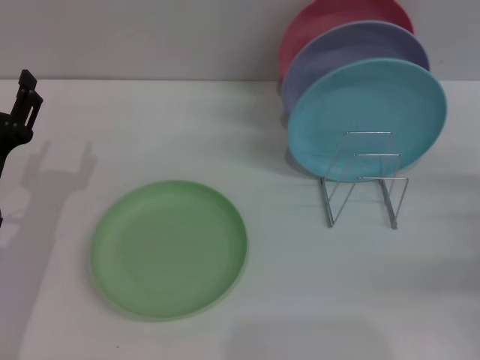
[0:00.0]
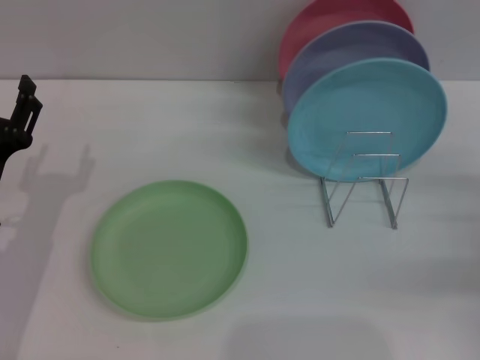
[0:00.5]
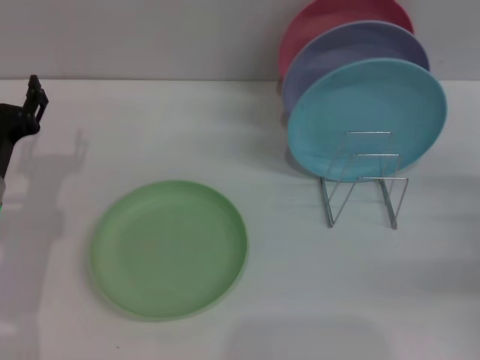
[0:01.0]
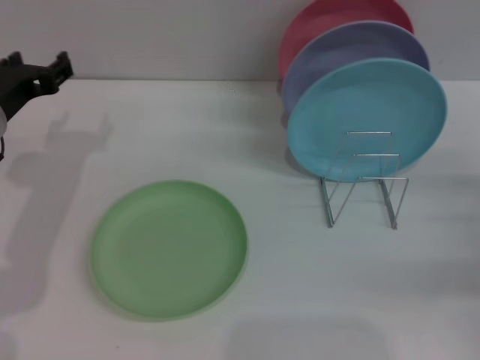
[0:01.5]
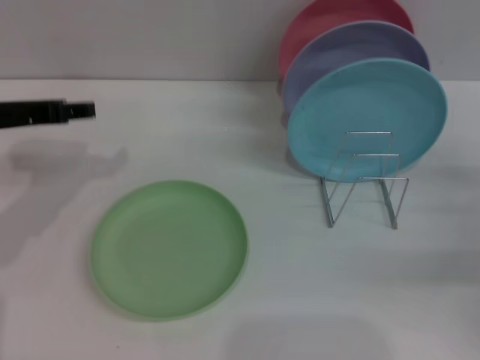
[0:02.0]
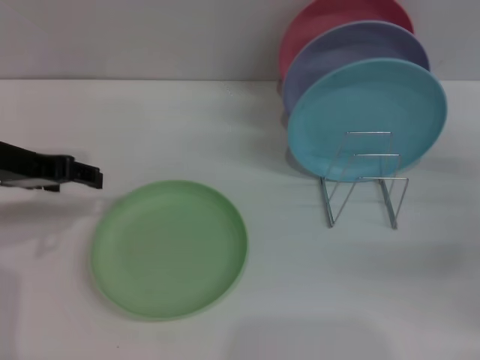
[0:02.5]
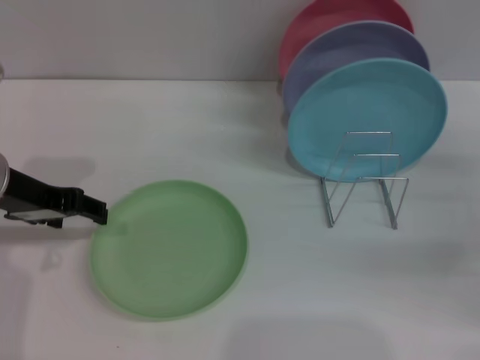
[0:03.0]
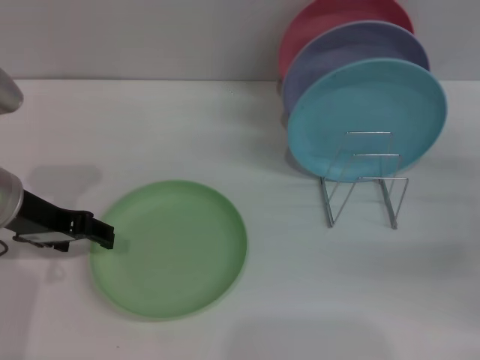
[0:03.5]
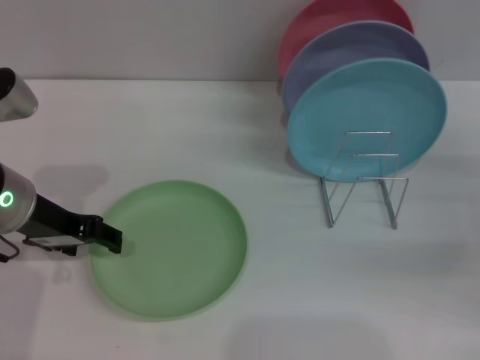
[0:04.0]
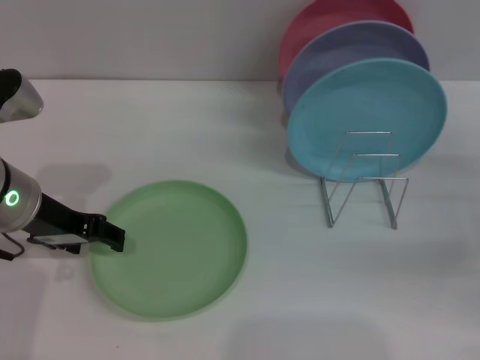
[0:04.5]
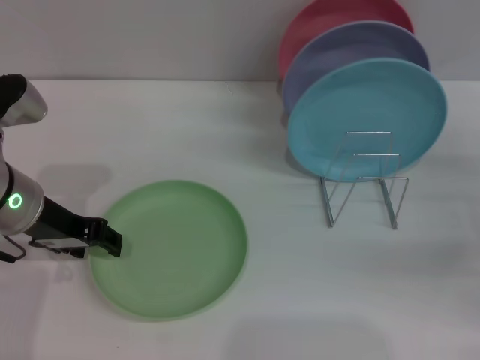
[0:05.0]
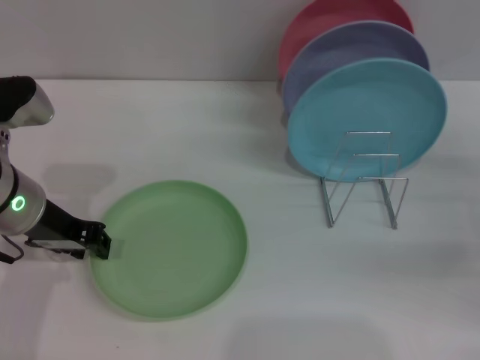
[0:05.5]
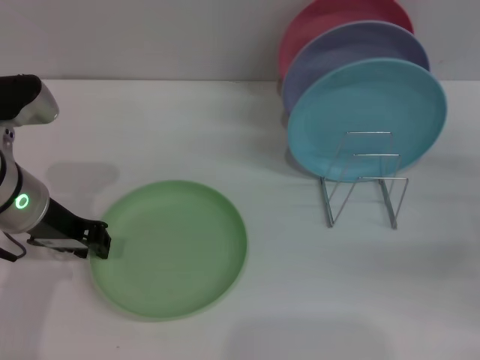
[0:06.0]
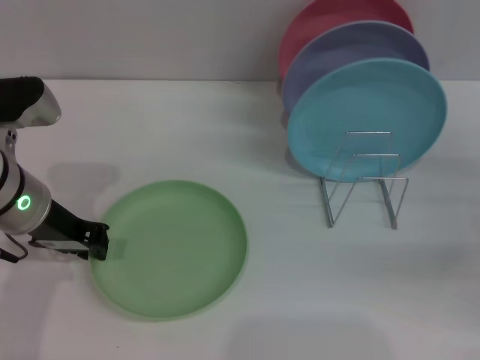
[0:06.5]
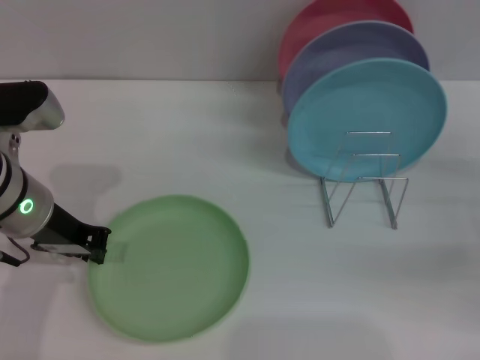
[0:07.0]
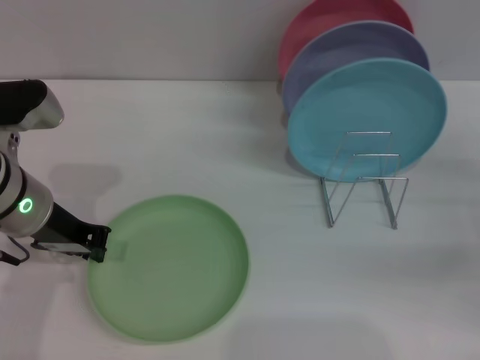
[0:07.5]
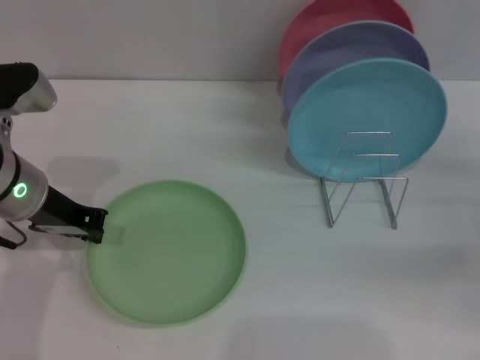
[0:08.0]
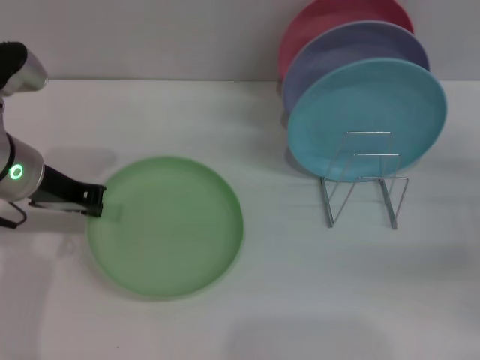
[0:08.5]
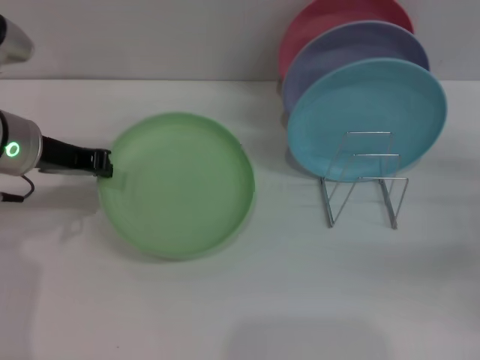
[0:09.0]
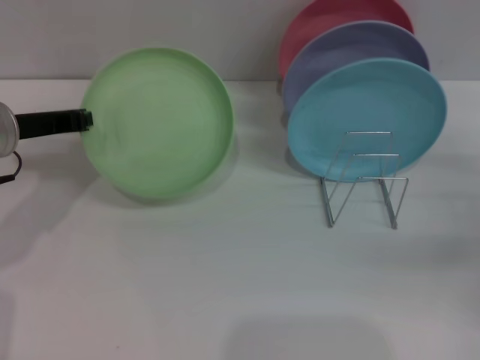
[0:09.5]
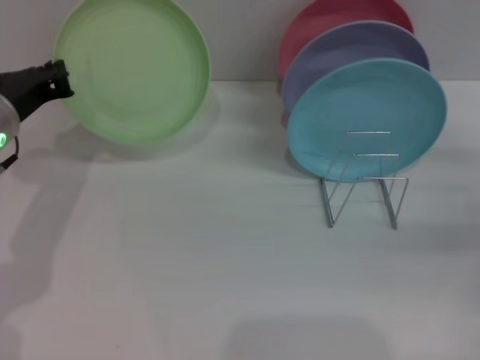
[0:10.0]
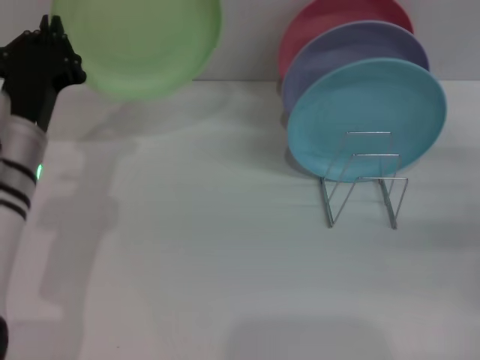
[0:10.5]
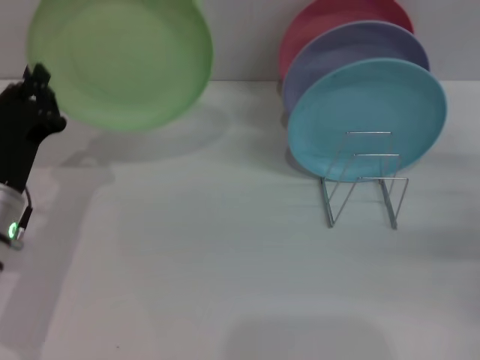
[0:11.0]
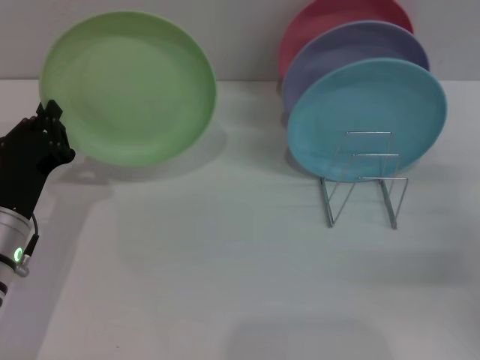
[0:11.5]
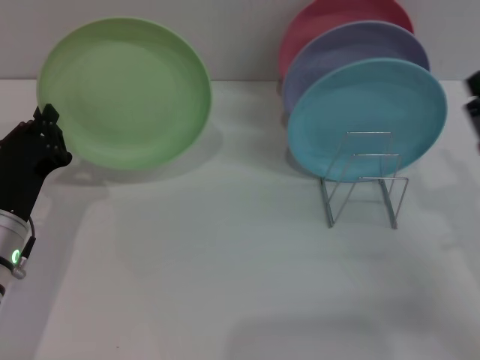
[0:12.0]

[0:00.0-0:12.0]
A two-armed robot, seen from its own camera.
Task of the whole recording: Grip the plate with one hand, pass it to the other, then set it on the shelf.
Step, 0:00.0 to 0:09.0: Pick up the plate with the left gripper.
0:00.0 to 0:02.0: The left gripper moves upward and forward, approximately 15 cm.
0:02.0 to 0:04.0: The left gripper moves approximately 5 cm.
0:04.0 to 0:06.0: The left gripper closes up.
0:06.0 to 0:08.0: Both grippers stay put.
0:10.0 to 0:12.0: The right gripper heads to the left and backward, covering some 10 cm. The left gripper shifts roughly 15 cm downward and backward.

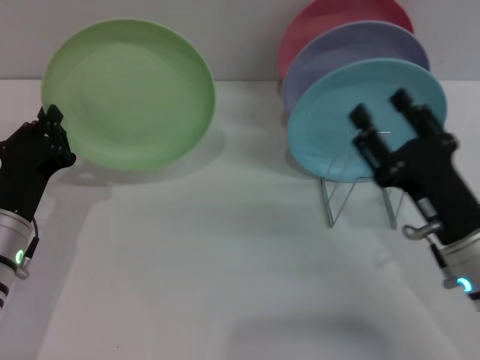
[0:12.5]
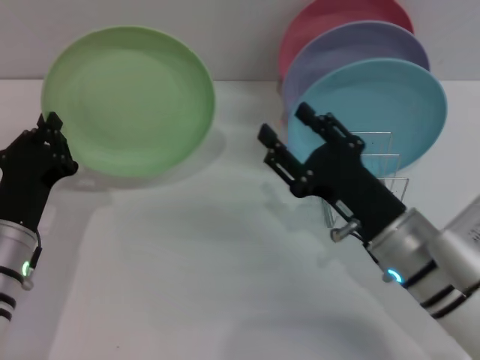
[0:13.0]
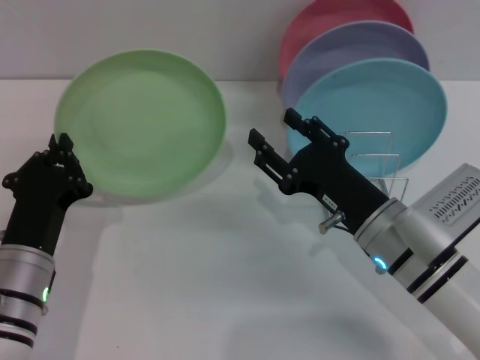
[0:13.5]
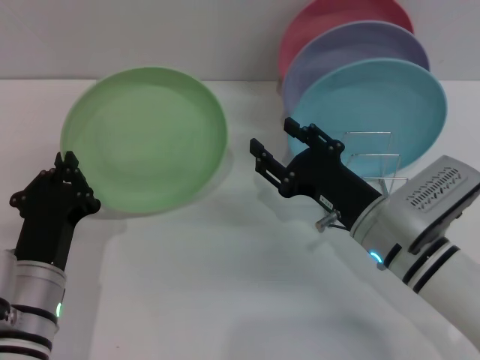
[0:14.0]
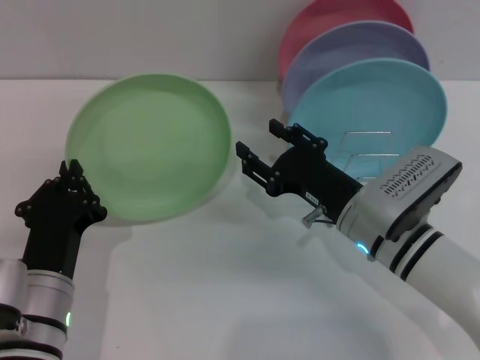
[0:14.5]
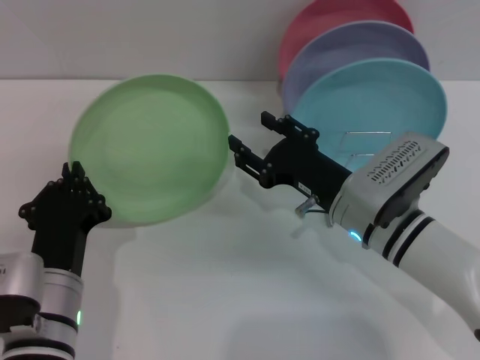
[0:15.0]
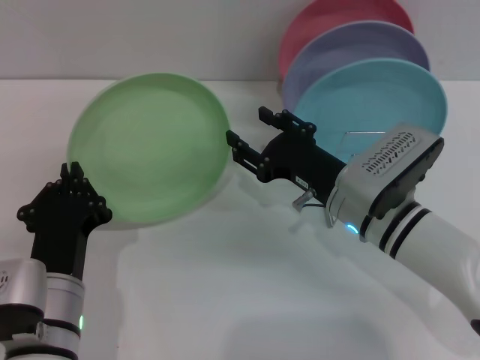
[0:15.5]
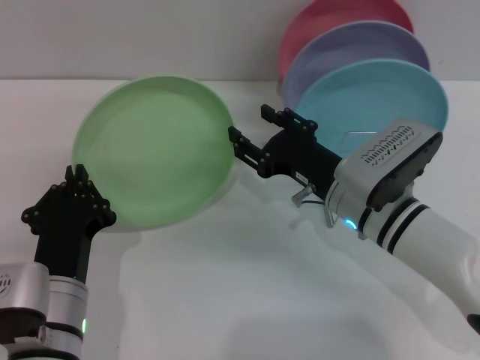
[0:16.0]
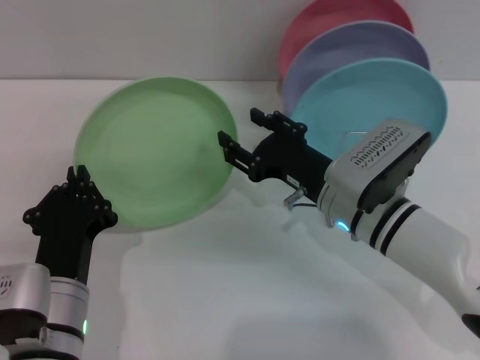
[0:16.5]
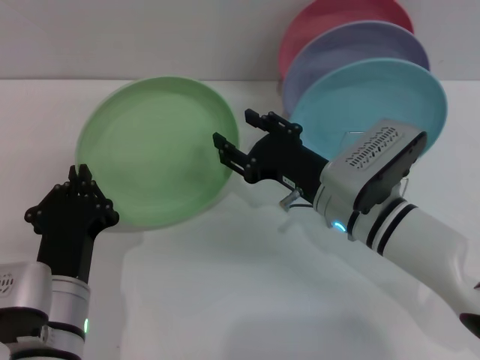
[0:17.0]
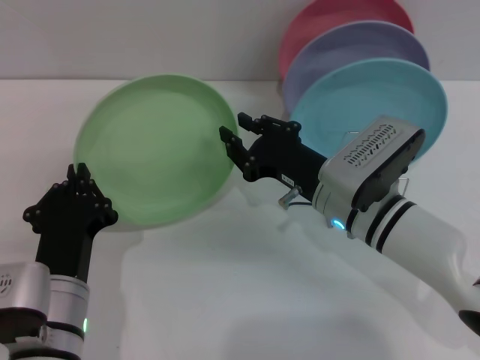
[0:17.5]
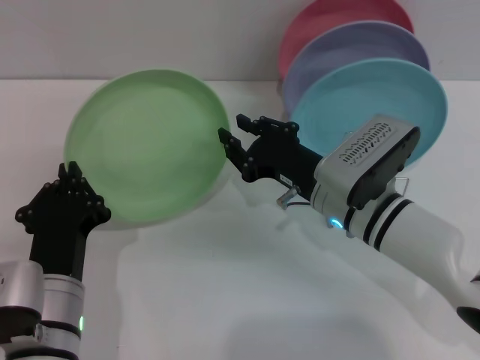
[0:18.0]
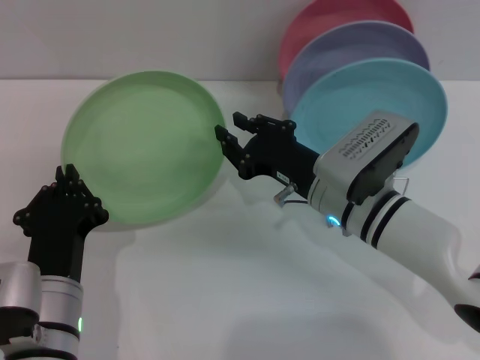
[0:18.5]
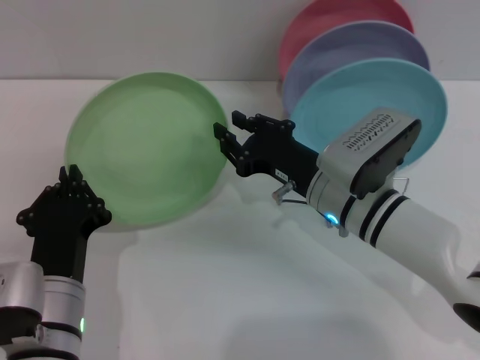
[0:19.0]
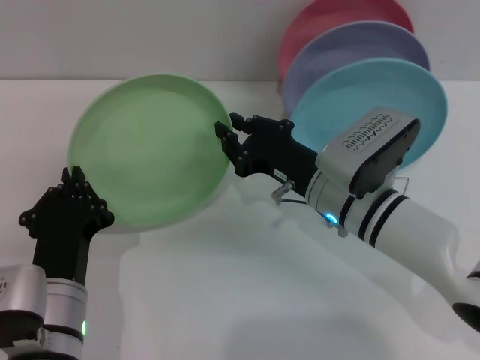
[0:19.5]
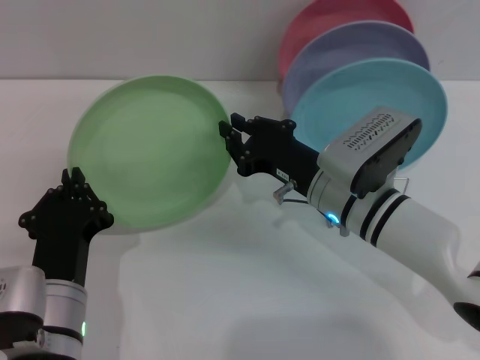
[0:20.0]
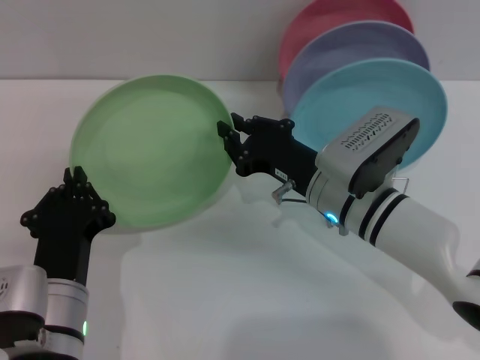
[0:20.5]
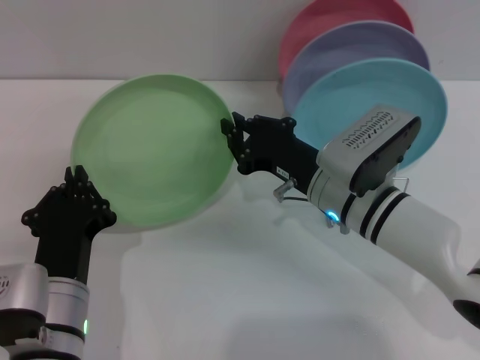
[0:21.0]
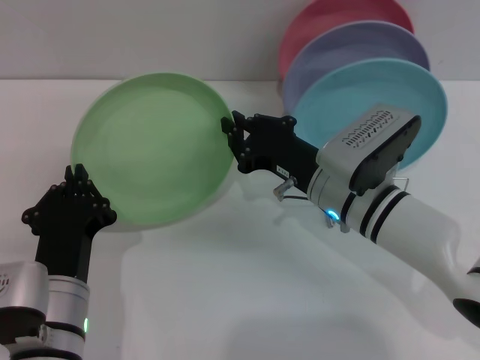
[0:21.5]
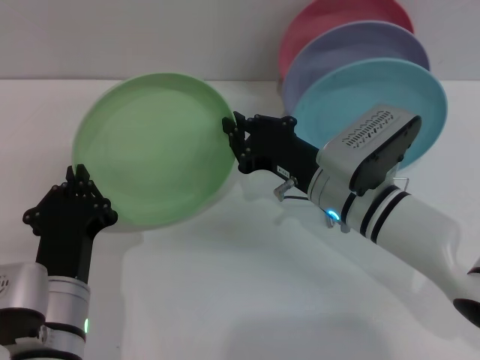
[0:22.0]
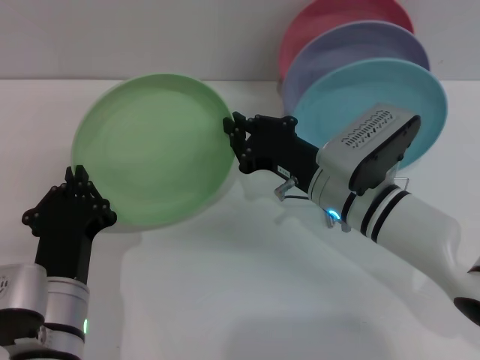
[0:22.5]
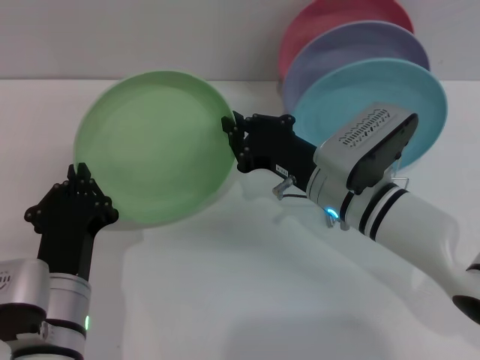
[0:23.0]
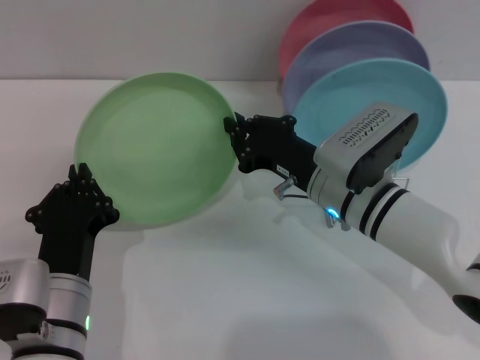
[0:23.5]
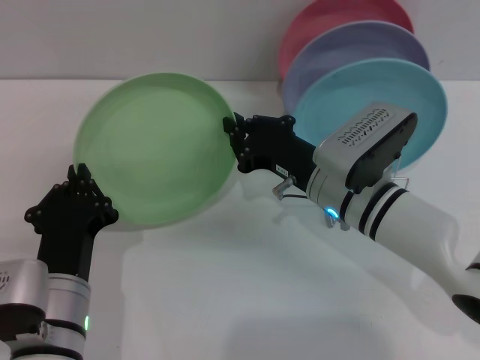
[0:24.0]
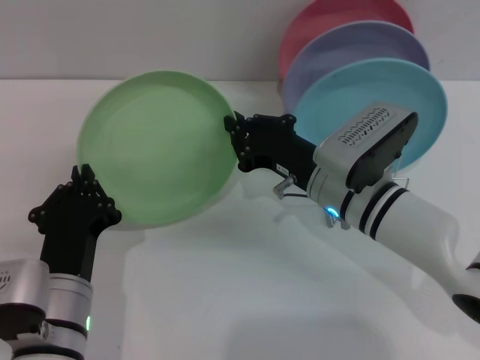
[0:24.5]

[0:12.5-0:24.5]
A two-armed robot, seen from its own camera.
Task of the whole recording: Grip the plate with one hand, pass it to the other, then set it on the shelf.
0:12.5 to 0:14.5: The right gripper travels to the left and forward by roughly 10 cm. The left gripper travels backward and to the right by some 10 cm.
0:14.5 to 0:16.5: The grippers move only a little.
0:16.5 to 0:18.5: The right gripper closes.
0:18.5 to 0:24.5: Both grippers stay put.

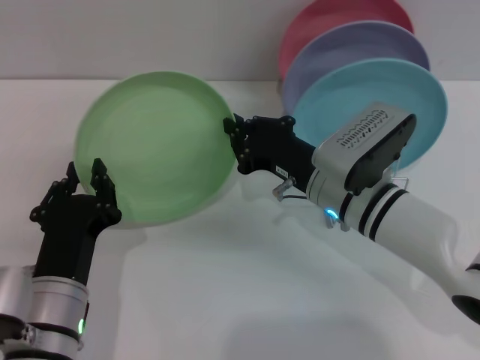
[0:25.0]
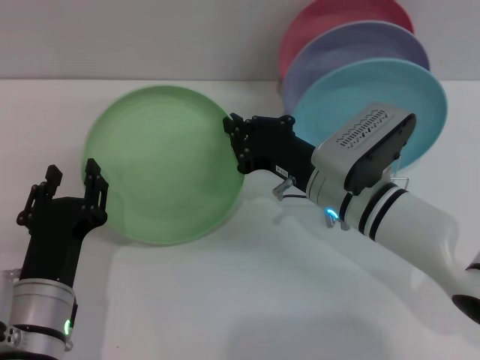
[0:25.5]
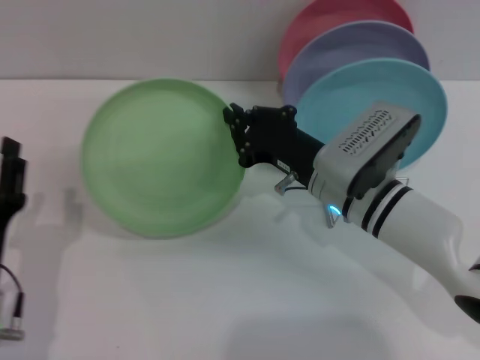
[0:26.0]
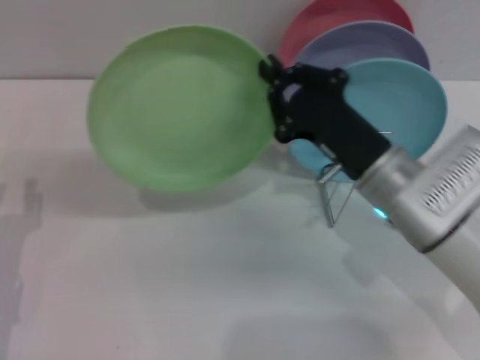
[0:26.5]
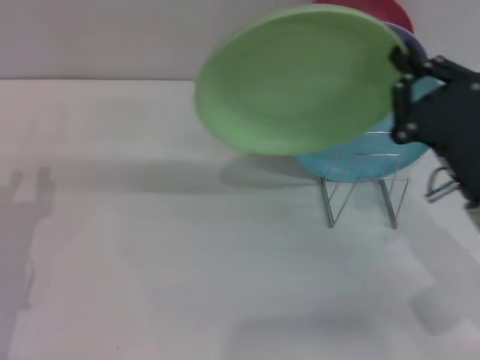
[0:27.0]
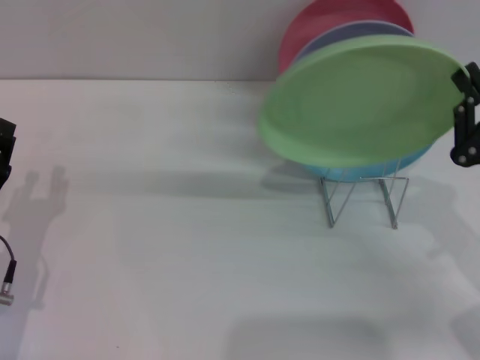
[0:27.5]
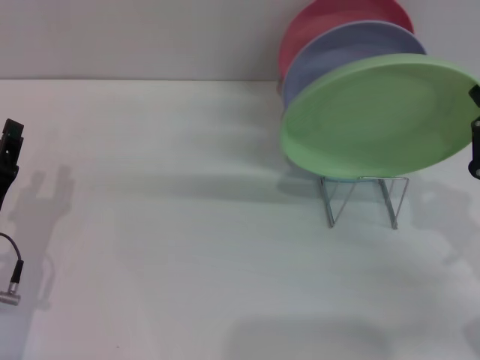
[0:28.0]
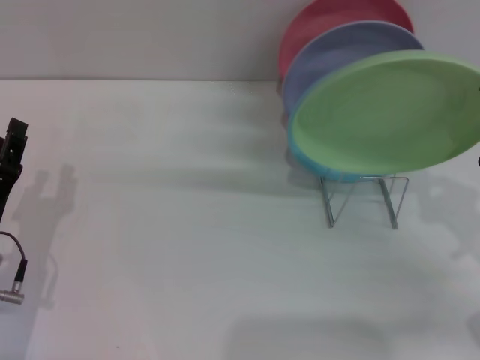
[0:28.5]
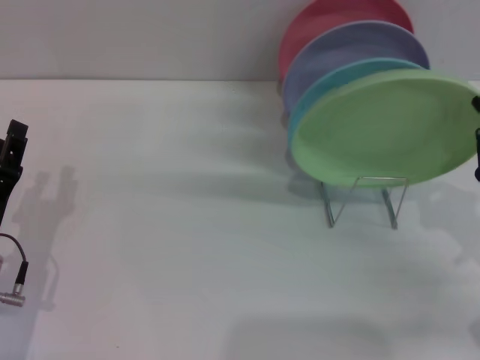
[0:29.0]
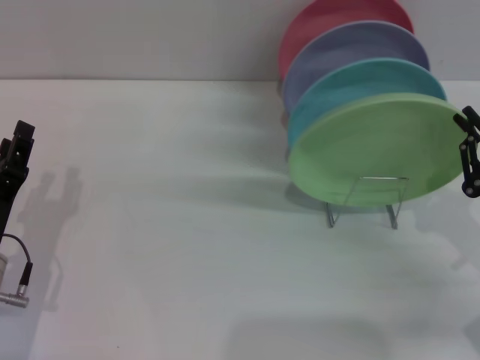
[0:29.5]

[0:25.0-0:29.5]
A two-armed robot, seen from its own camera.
Task of the whole recording: Grip the plate with one hand, pass it to the other, then set it on the shelf.
0:25.0 to 0:27.0: The left gripper shifts roughly 10 cm to the left, and opens up. Meanwhile the right gripper is displaced to the right and backward by roughly 15 cm.
0:27.0 to 0:29.5: The right gripper shifts roughly 10 cm to the right.
